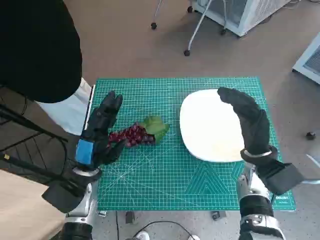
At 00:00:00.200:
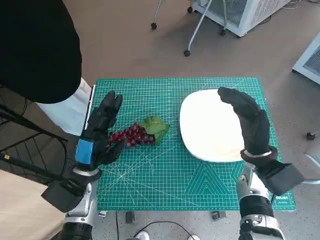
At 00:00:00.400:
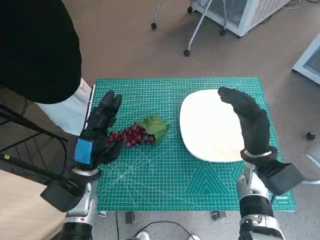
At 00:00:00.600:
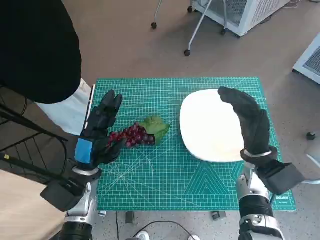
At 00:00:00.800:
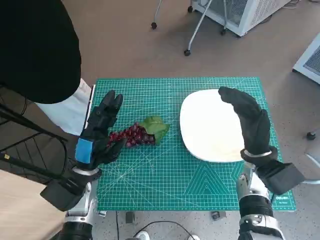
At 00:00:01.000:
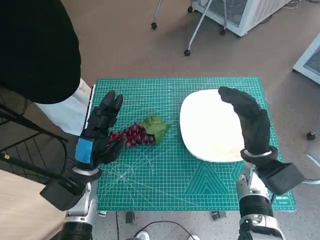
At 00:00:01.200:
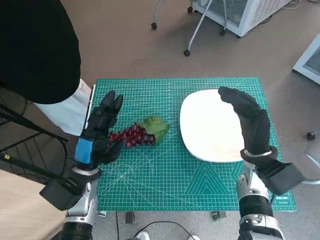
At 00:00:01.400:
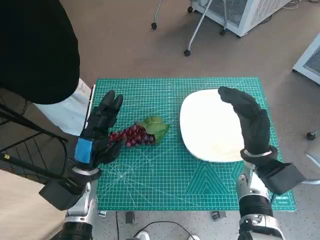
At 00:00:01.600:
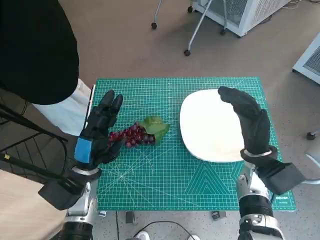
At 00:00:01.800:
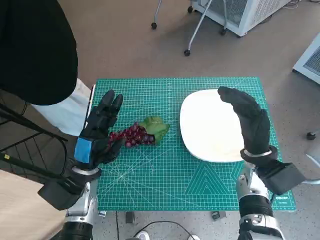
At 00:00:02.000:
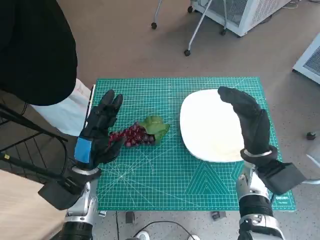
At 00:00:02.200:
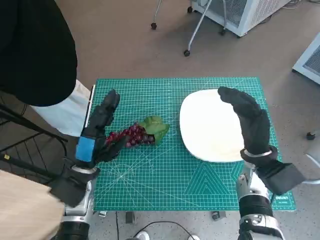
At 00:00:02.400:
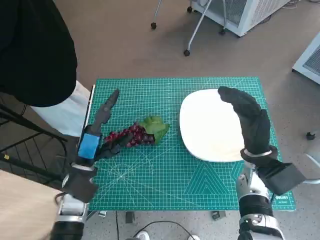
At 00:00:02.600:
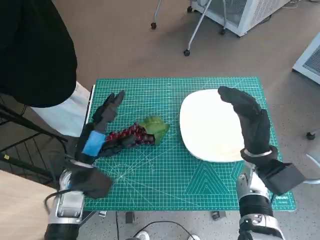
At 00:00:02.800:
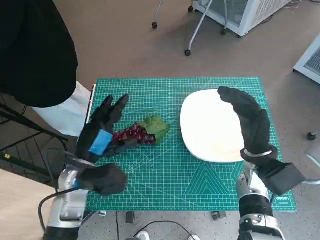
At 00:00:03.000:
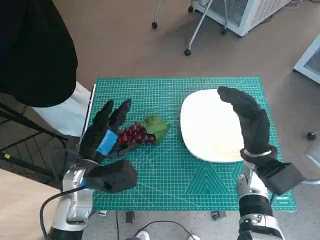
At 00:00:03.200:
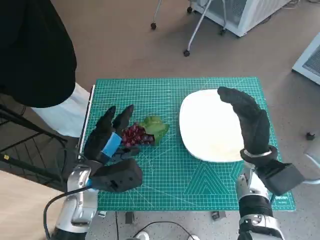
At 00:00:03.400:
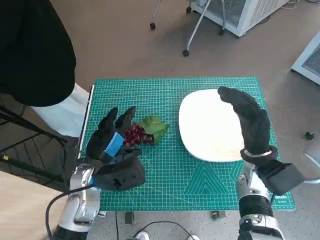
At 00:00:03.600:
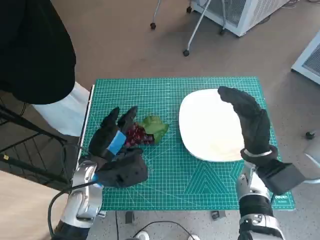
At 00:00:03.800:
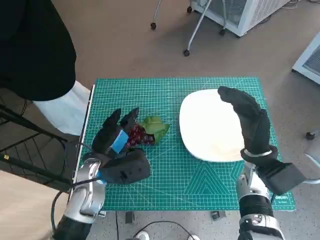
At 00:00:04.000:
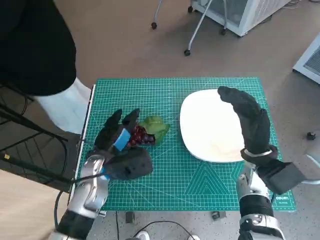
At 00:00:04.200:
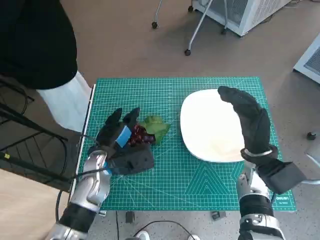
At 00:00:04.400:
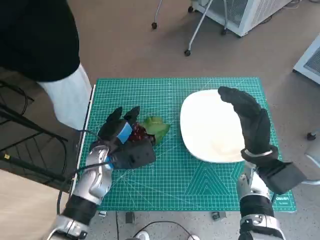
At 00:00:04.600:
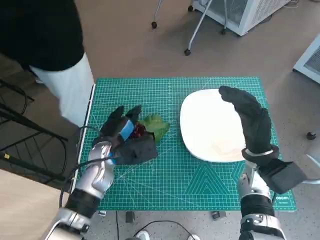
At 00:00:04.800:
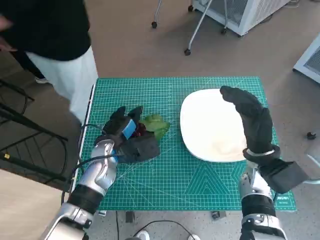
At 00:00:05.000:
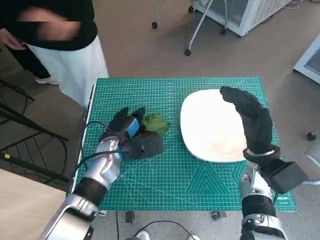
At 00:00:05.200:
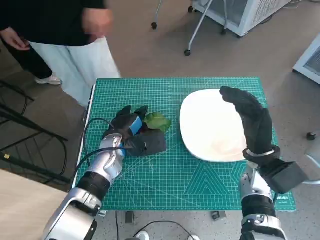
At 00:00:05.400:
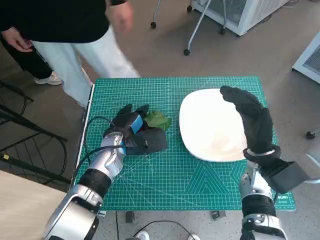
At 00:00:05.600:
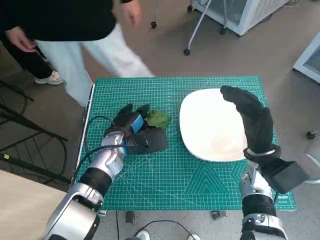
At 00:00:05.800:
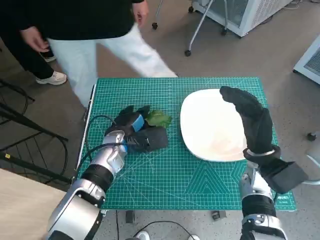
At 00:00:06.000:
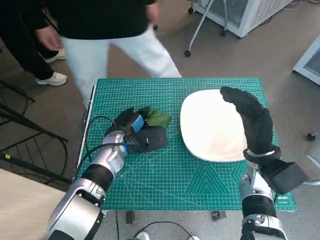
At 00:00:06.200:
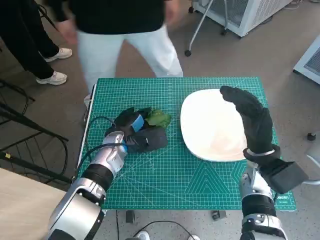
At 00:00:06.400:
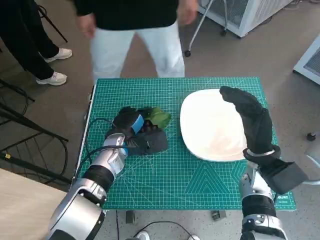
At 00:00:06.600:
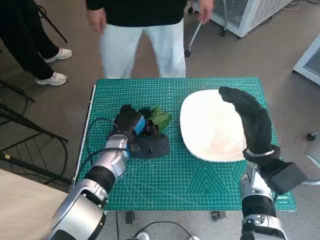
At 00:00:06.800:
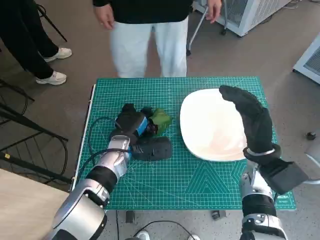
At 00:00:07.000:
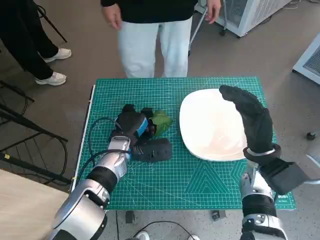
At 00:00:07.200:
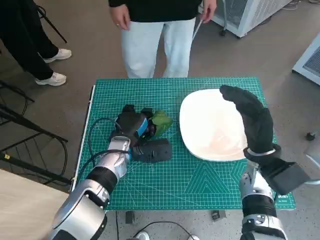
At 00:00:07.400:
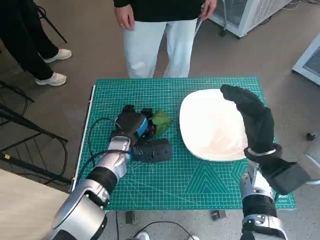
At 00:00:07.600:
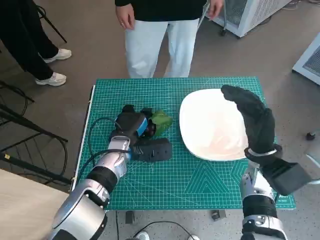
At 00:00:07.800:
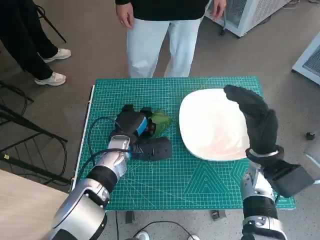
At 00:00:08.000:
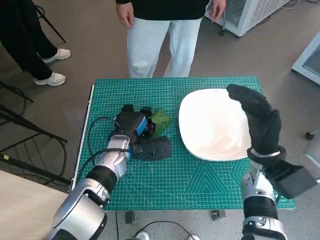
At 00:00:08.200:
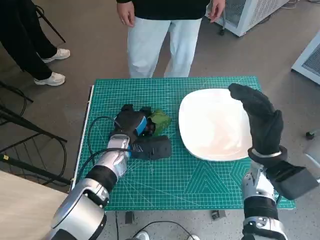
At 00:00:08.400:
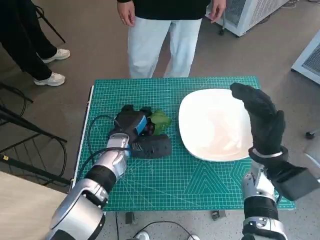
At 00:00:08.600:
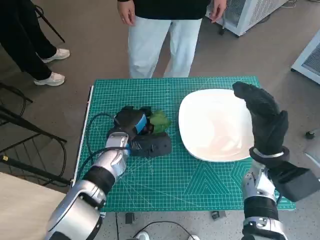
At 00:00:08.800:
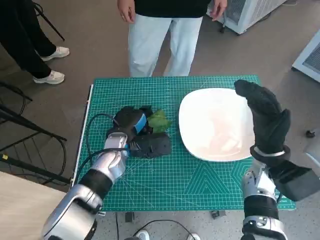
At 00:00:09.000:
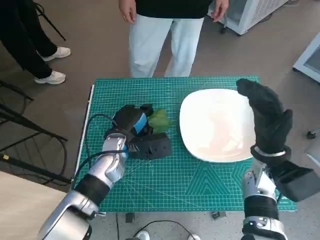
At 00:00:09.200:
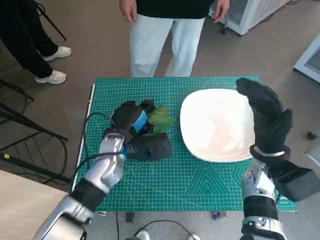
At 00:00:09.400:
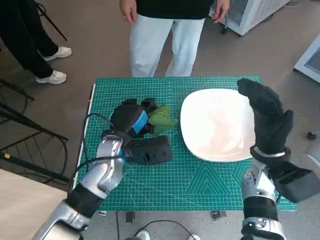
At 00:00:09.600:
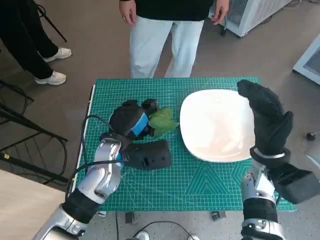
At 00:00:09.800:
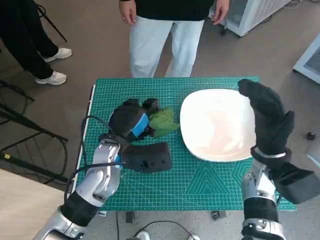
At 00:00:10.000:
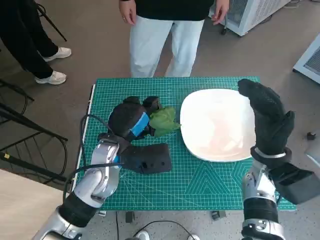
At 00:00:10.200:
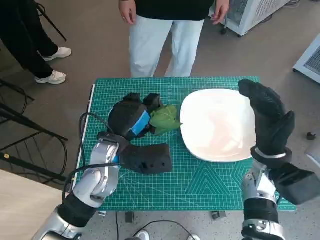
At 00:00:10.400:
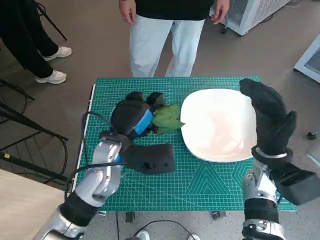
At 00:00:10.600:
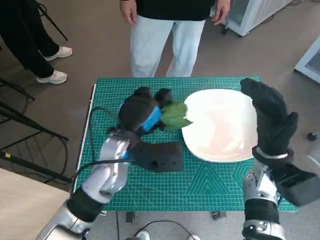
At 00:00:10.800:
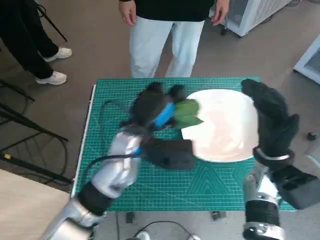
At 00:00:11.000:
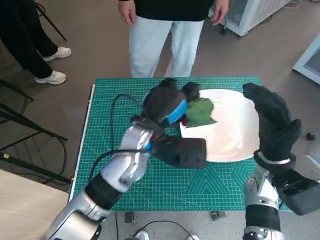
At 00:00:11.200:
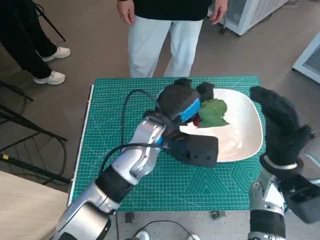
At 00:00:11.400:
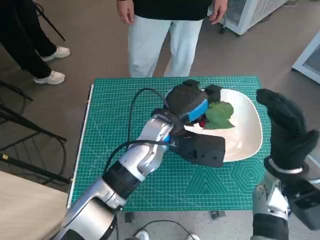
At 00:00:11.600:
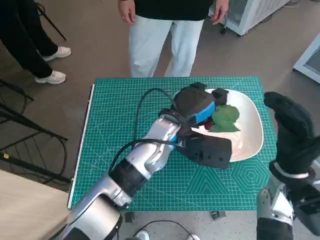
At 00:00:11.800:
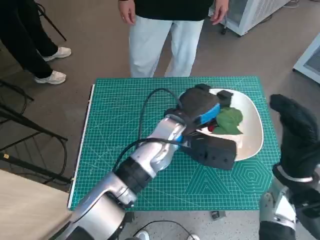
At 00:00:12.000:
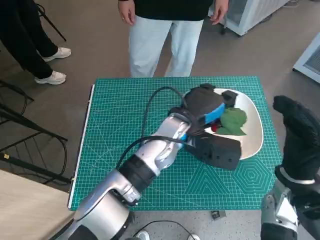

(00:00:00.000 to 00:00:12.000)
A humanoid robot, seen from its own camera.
Task of the whole recording: Pick up the grapes and put them on the plate.
Step, 00:00:00.000 - 00:00:08.400: Grasp the grapes with left hand.
00:00:03.000 - 00:00:04.400: The left hand ends up some 5 cm from where it was.
00:00:04.400 - 00:00:06.000: The left hand shifts by about 5 cm.
00:00:07.600 - 00:00:09.000: The hands move only a little.
00:00:09.000 - 00:00:10.400: The left hand heads upward, covering roughly 5 cm.
00:00:10.400 - 00:00:12.000: The right hand ends up about 5 cm from where it was. Meanwhile the left hand goes about 10 cm to the right.

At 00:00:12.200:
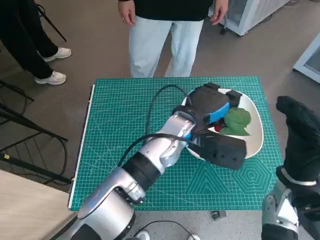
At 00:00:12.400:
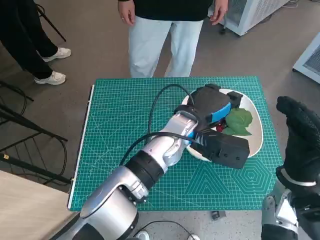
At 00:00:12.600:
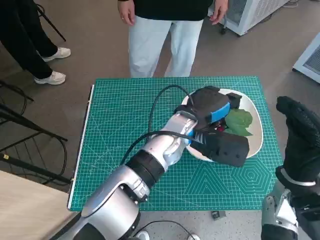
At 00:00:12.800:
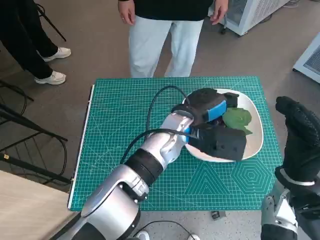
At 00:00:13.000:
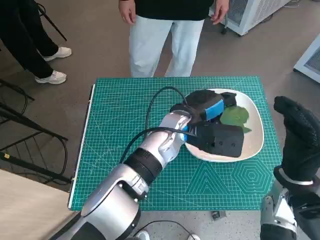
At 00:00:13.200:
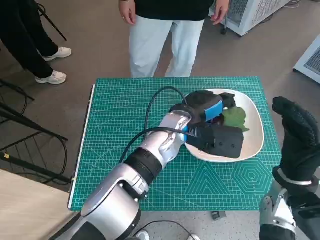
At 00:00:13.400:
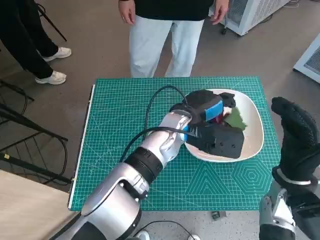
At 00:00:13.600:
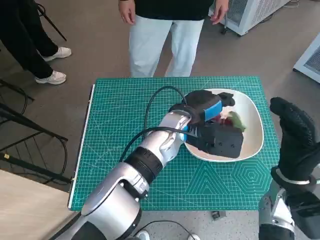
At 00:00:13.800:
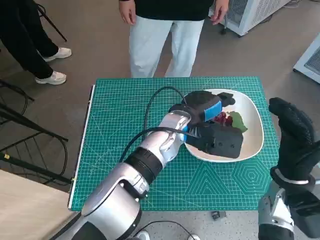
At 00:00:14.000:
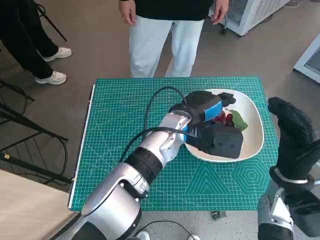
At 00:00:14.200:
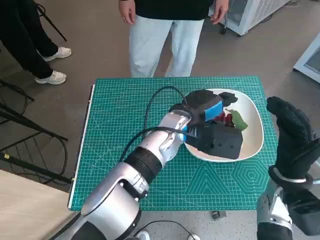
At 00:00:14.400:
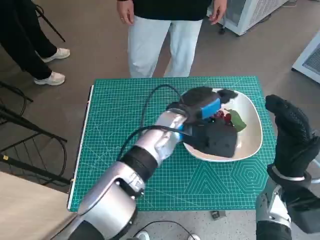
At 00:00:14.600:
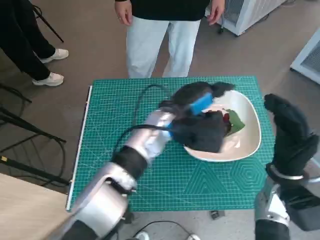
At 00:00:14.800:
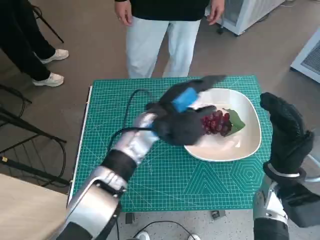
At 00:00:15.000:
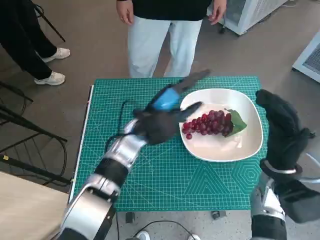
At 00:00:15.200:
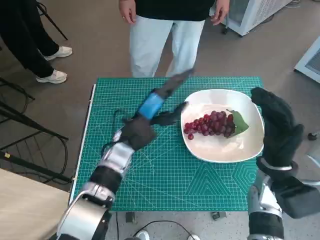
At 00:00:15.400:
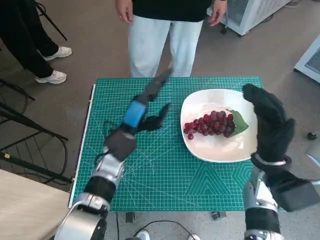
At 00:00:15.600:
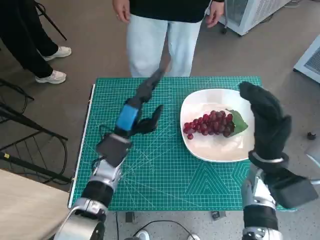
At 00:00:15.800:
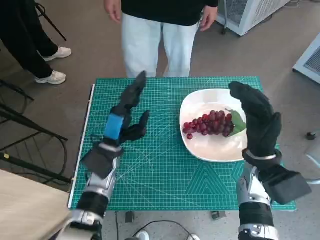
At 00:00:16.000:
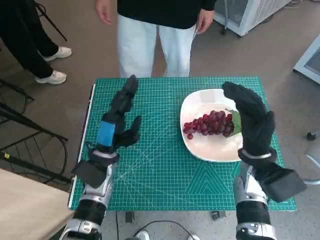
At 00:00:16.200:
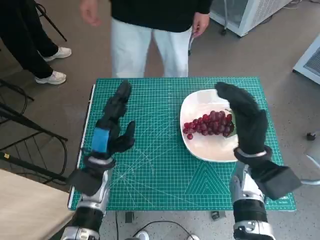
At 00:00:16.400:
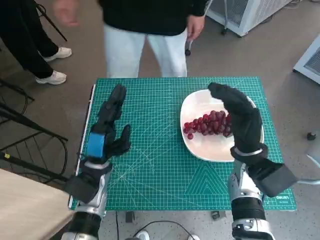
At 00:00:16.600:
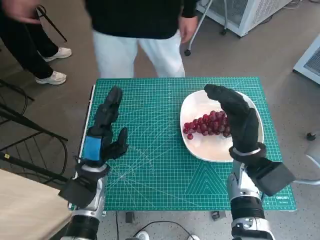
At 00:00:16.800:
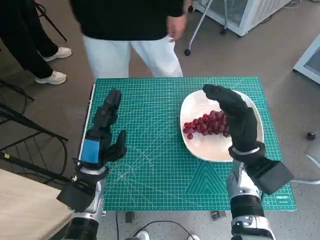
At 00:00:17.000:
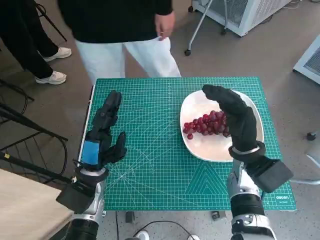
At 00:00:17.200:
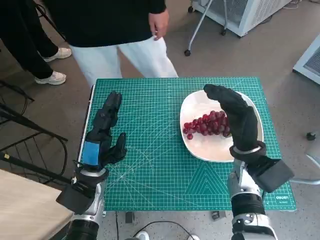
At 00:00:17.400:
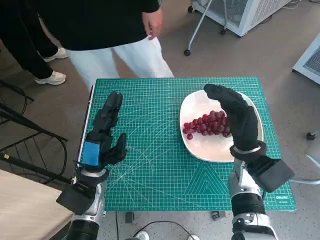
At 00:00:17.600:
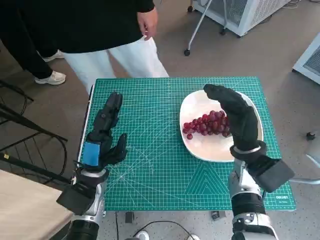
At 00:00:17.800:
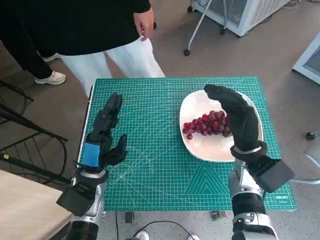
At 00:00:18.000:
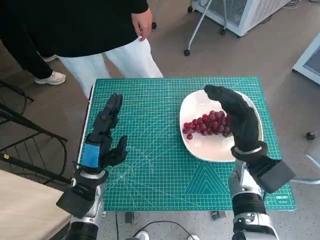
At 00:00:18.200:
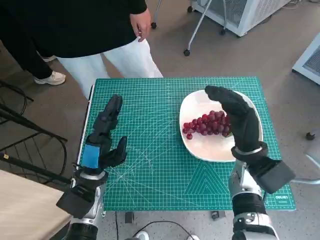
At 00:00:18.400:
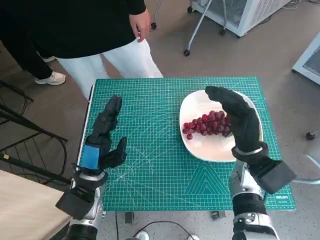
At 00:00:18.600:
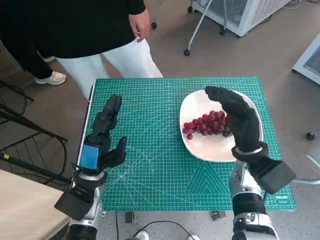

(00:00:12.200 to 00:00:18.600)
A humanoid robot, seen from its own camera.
Task of the whole recording: Pick up the grapes and put them on the plate.
00:00:12.200 - 00:00:13.800: There are only small adjustments of the hands.
00:00:13.800 - 00:00:15.400: The left hand travels to the left and downward by approximately 15 cm.
00:00:15.400 - 00:00:17.000: The left hand is displaced backward and to the left by approximately 10 cm.
00:00:17.000 - 00:00:18.600: Both hands stay put.
